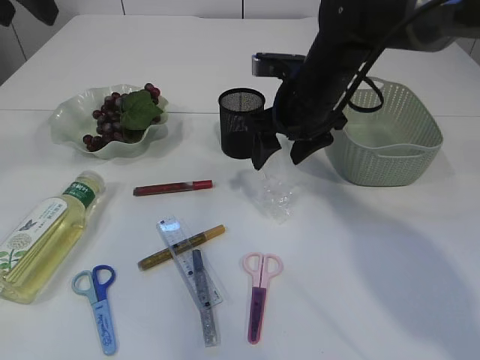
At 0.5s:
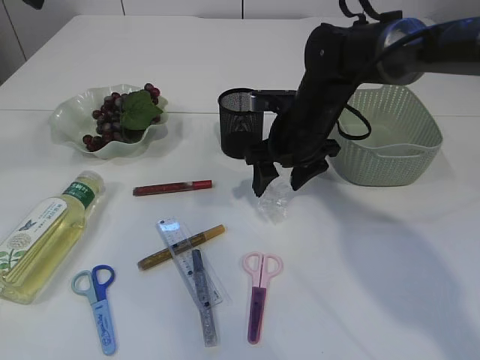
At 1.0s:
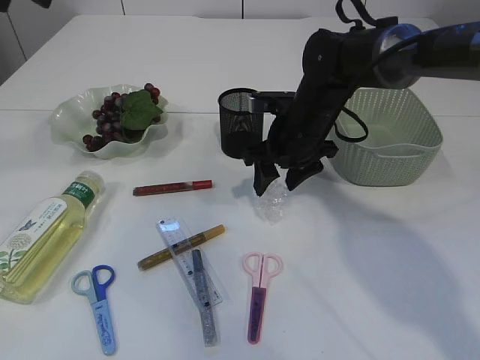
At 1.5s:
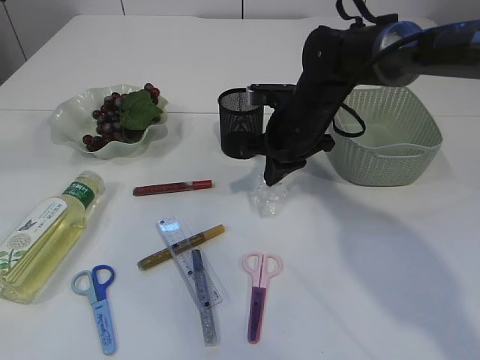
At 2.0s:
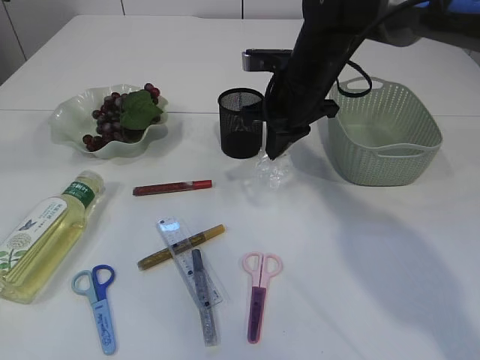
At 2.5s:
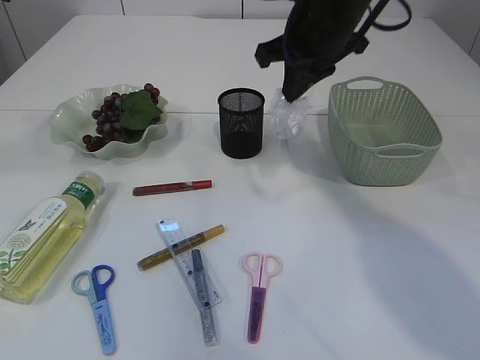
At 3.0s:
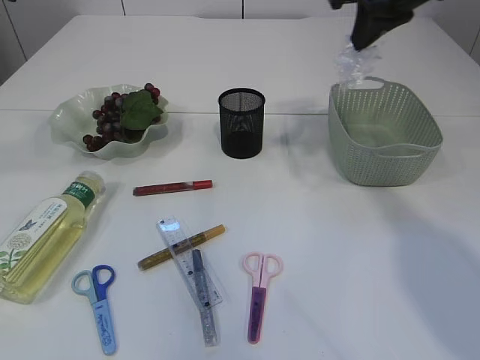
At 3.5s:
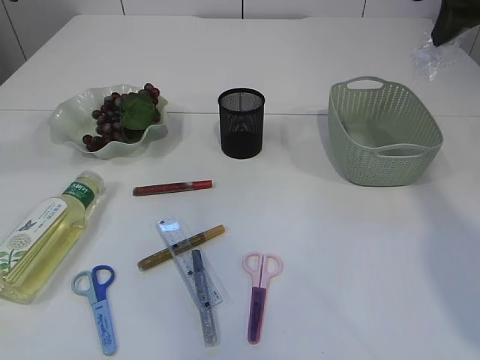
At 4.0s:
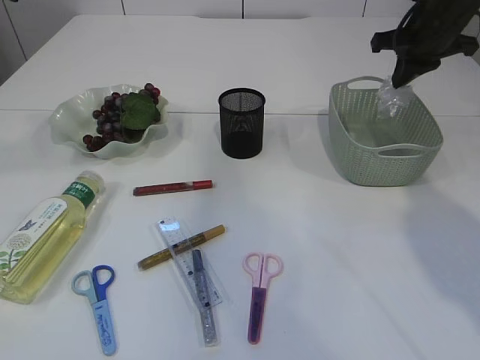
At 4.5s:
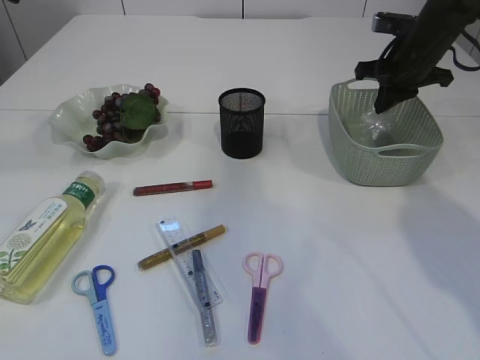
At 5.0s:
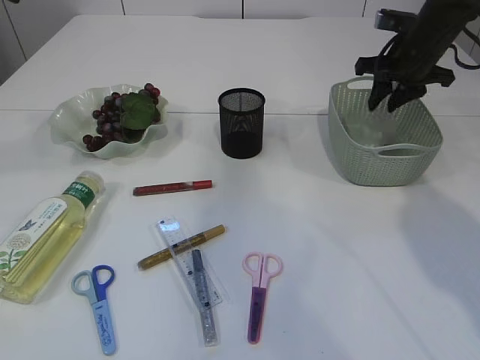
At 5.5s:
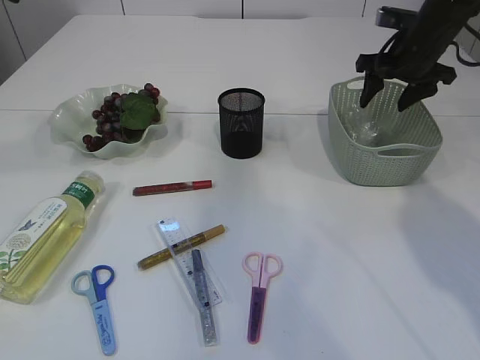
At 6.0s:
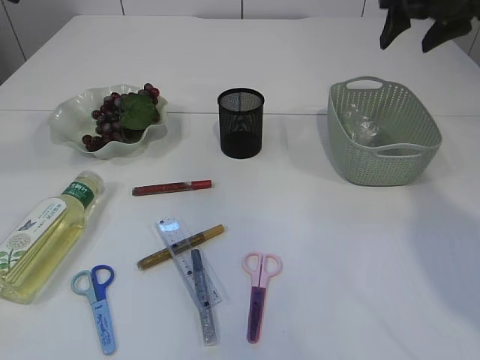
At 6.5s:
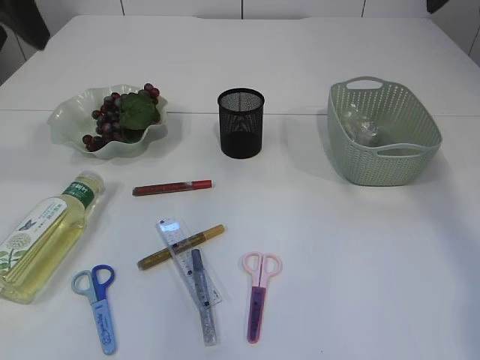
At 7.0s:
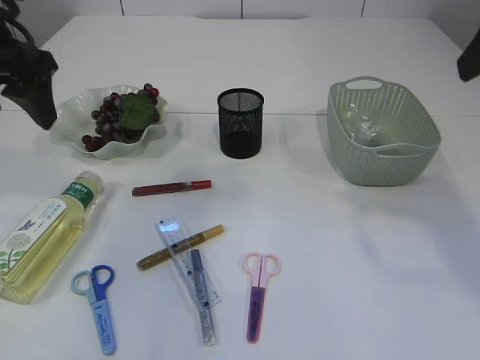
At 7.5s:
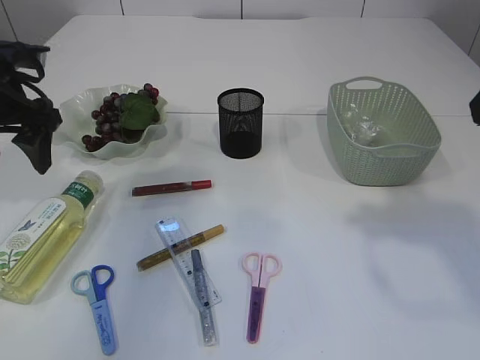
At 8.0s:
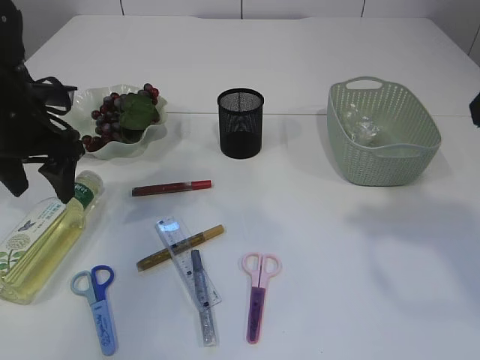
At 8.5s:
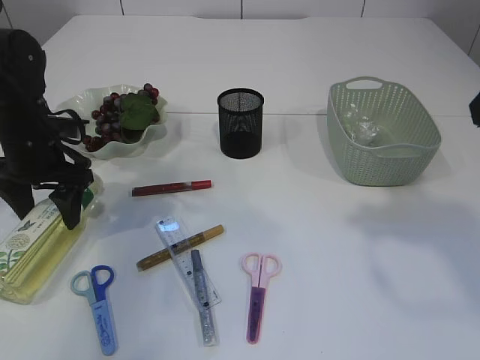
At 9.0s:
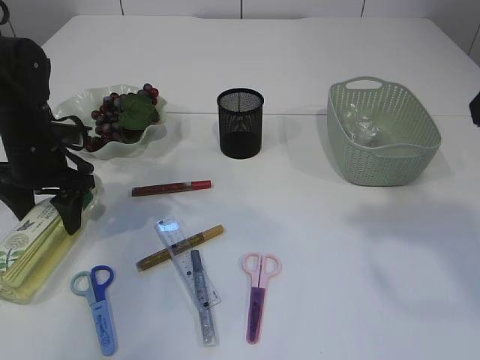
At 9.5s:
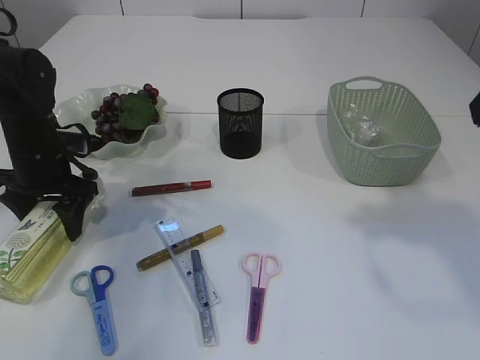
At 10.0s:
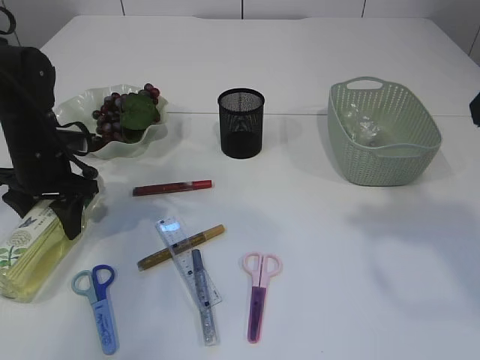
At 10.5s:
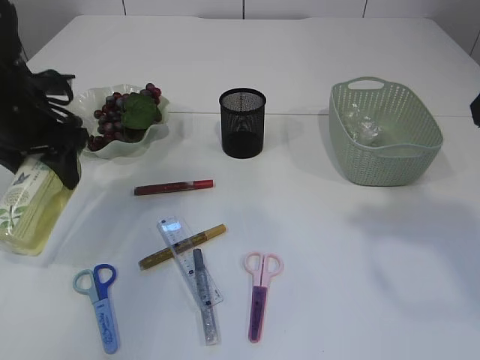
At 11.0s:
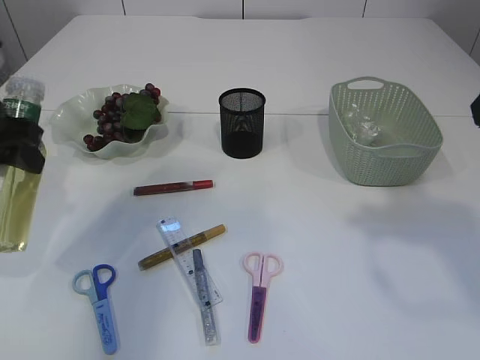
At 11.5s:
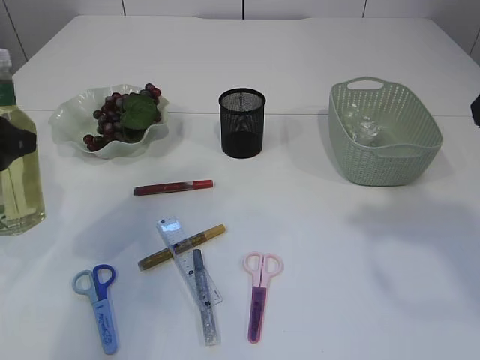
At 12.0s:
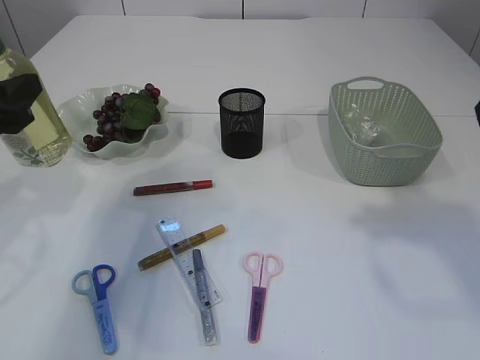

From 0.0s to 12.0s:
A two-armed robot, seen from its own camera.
Step, from 0.0s to 2.5s: Pick up the plastic.
Step, from 3.0s to 5.5s: Place the plastic in the basket.
Step, from 6.0s to 10.5s: Pick up the bottle with the left arm.
From 0.0s to 2.0s: The right gripper closes.
From 2.0s to 4.0s: The right gripper shifts approximately 20 cm to the right.
From 4.0s to 6.0s: The right gripper opens its fingers.
From 6.0s to 8.0s: The right gripper travels backward by about 25 cm; the left gripper goes approximately 25 cm downward, and opens.
From 8.0s to 10.0s: The left gripper heads downward, covering some 5 cm.
From 10.0s to 12.0s: The left gripper travels backward and upward by some 15 cm.

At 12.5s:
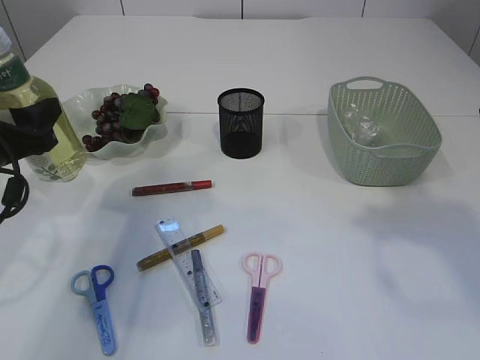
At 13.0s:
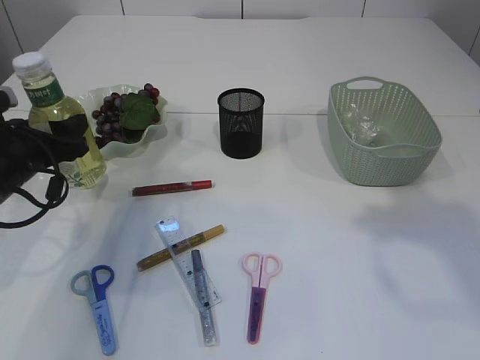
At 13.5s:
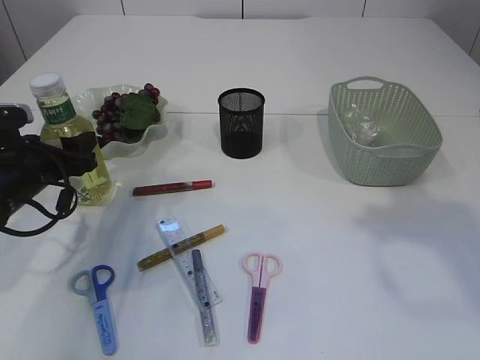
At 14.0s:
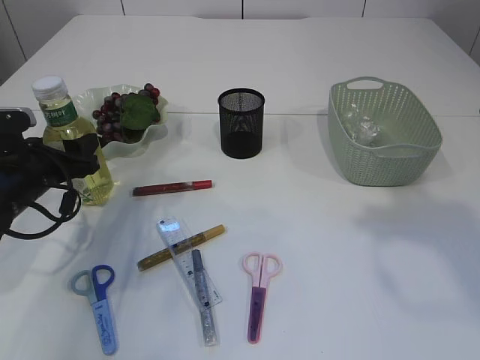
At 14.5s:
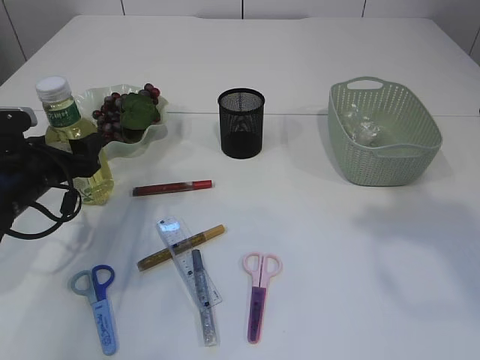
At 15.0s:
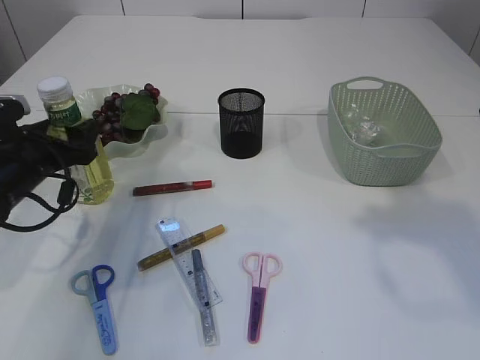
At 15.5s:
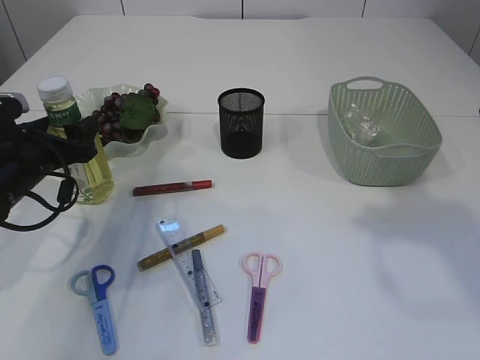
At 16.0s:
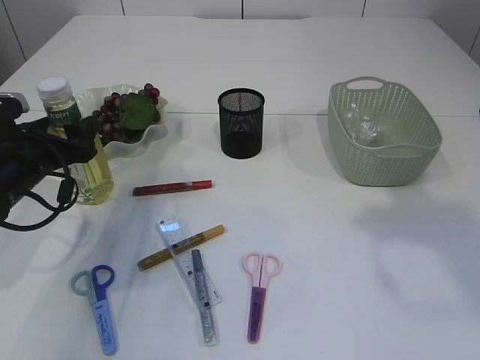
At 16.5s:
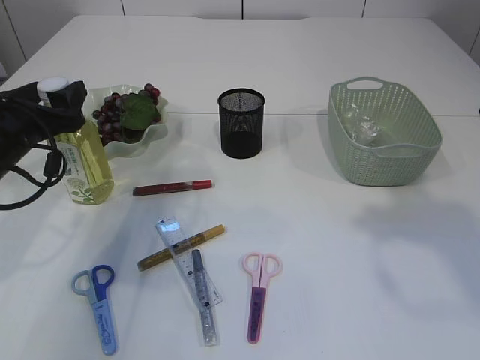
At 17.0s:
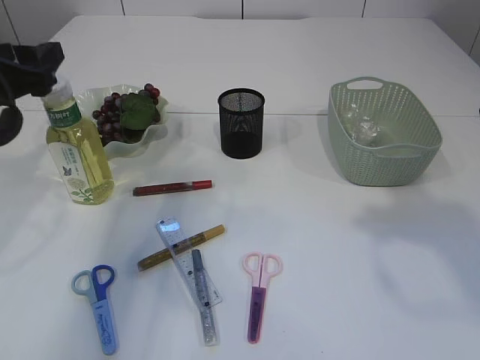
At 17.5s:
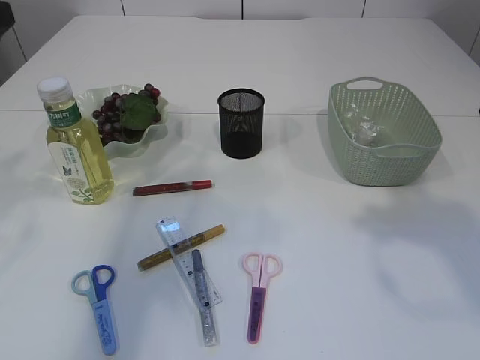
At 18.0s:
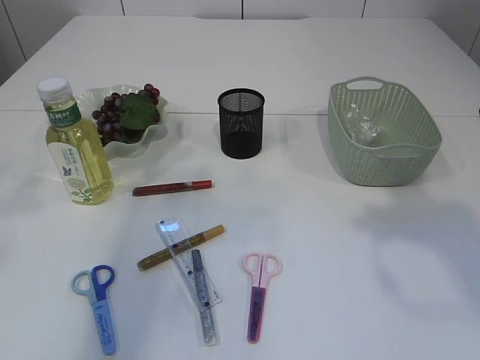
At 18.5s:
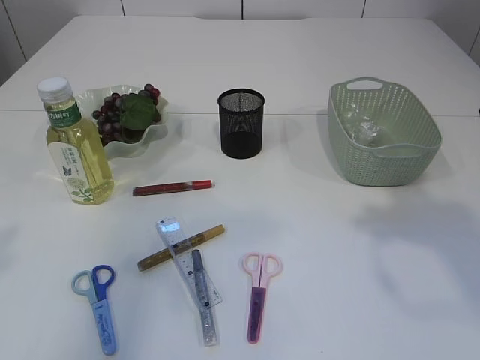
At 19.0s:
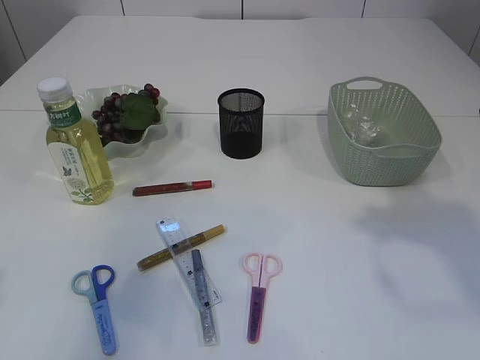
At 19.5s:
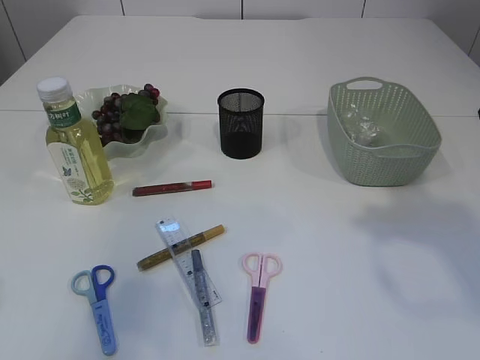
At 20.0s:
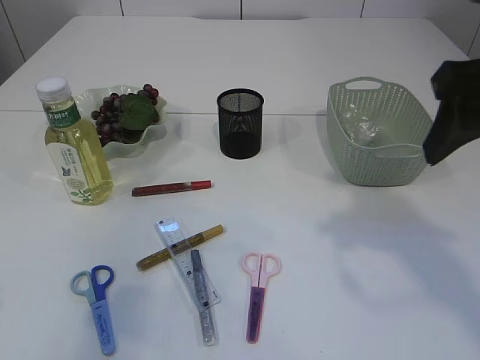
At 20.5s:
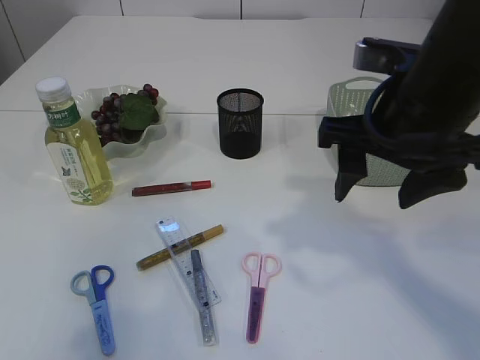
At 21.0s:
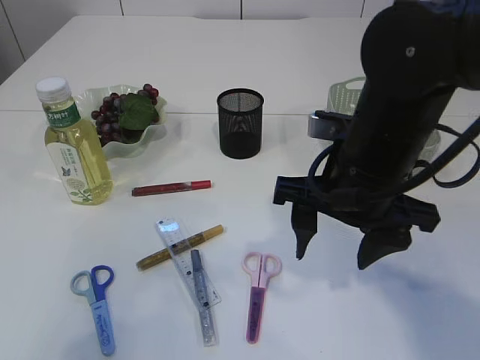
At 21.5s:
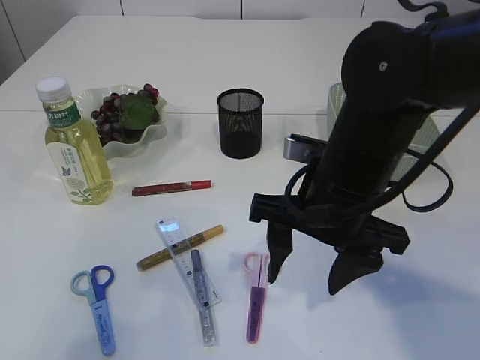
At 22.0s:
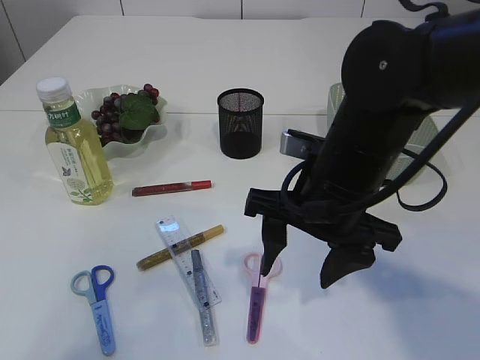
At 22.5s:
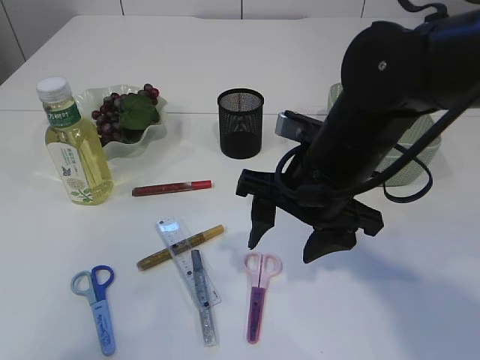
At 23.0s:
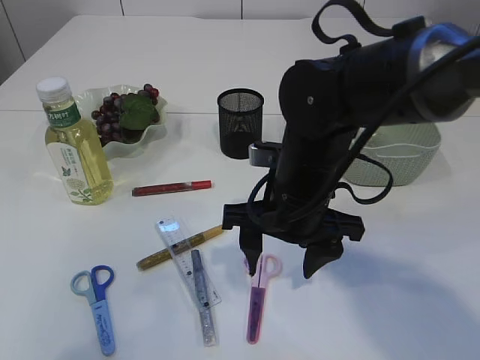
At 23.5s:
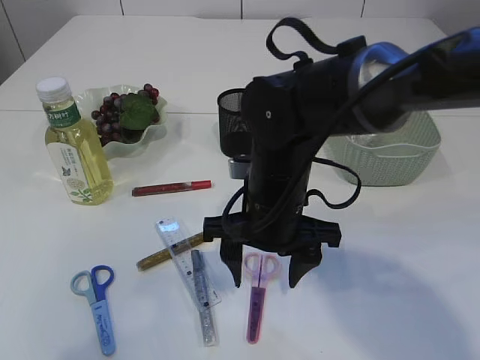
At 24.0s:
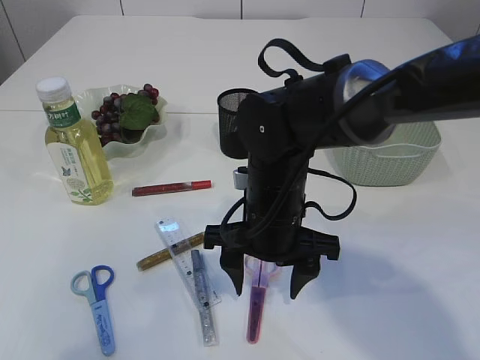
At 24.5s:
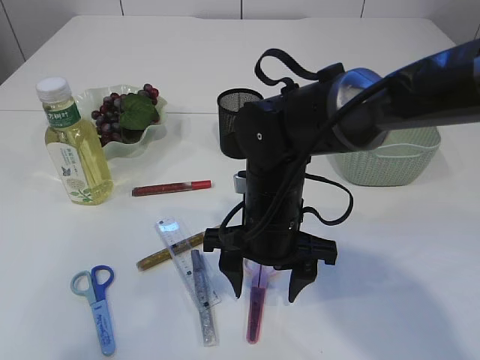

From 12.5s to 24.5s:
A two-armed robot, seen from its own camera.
Step, from 12.5s to 17.0s: Place the bottle.
From 12.5s to 14.5s: The left gripper travels downward and forward by about 10 cm.
From 14.5s to 16.5s: The left gripper travels upward by about 5 cm.
From 16.5s to 18.5s: The left gripper is displaced backward and upward by some 25 cm.
From 18.5s to 20.5s: The left gripper shifts about 5 cm backward. The right gripper moves to the left and downward, about 15 cm.
From 20.5s to 22.5s: The right gripper heads downward and to the left, covering approximately 10 cm.
From 22.5s to 24.5s: The right gripper is displaced downward and to the left by roughly 10 cm.

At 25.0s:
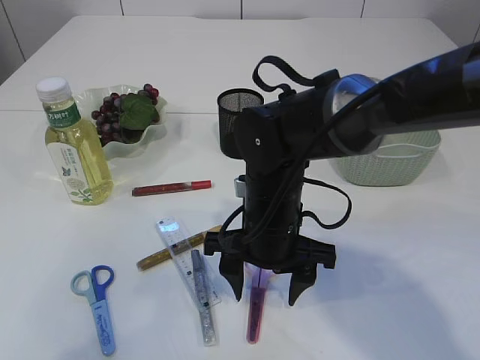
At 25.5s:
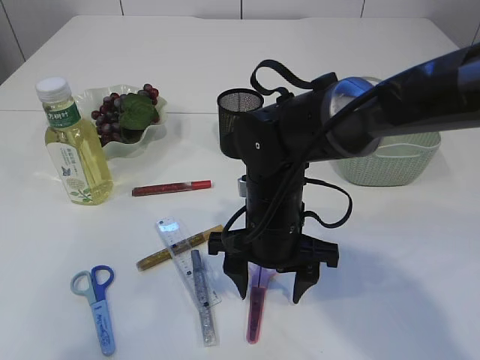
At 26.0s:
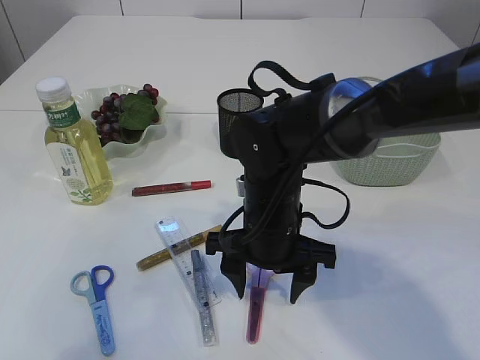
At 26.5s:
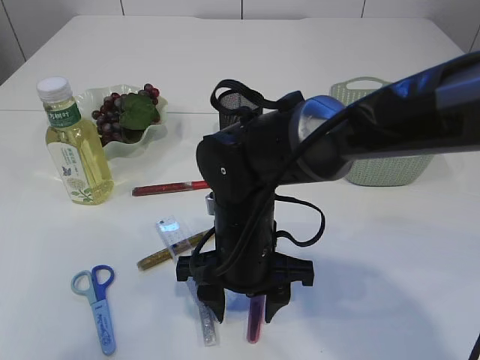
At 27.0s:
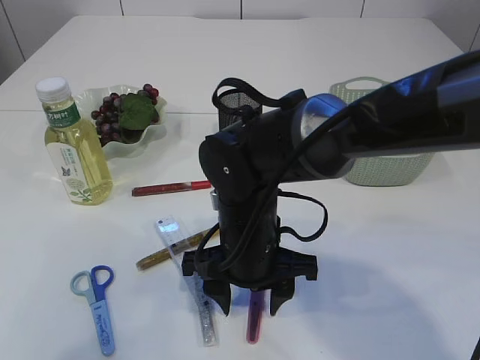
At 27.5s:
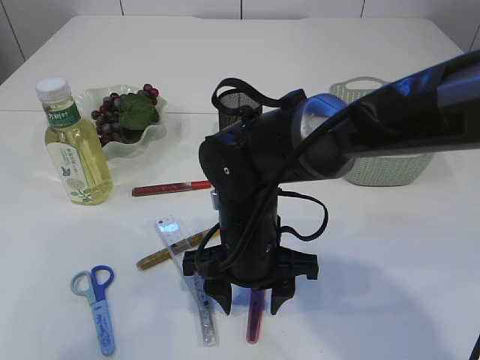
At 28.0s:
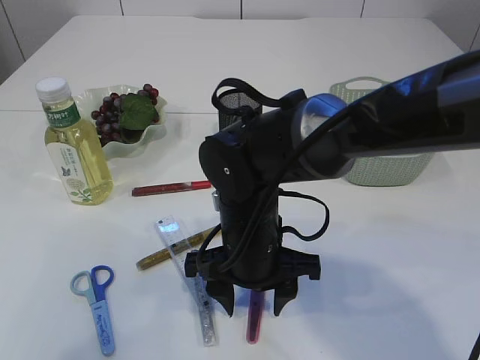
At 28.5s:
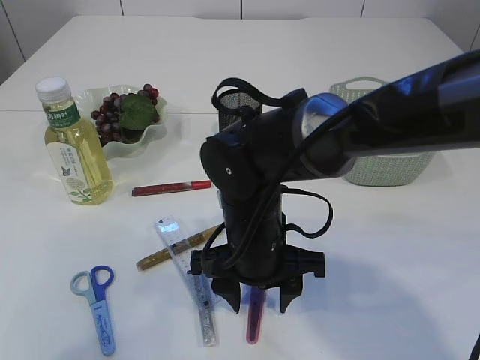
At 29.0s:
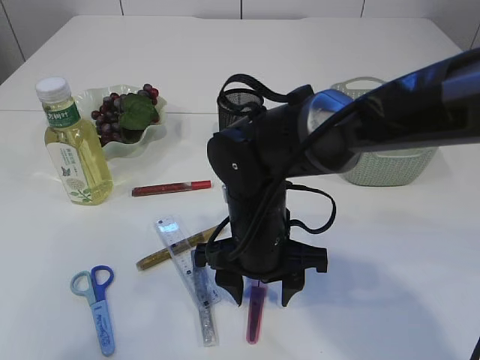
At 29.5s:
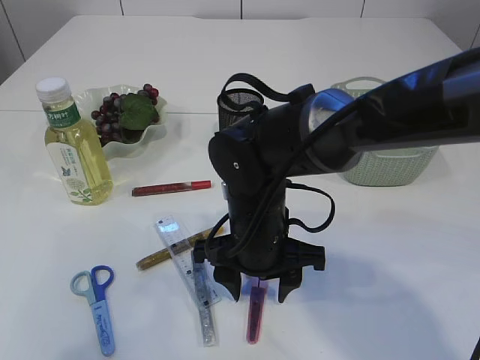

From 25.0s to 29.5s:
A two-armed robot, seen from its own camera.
From 25.0s to 29.5s: The grippers make only small movements.
